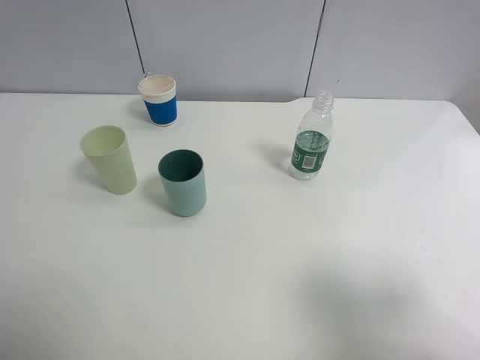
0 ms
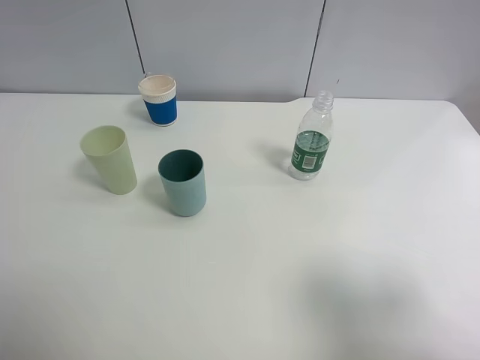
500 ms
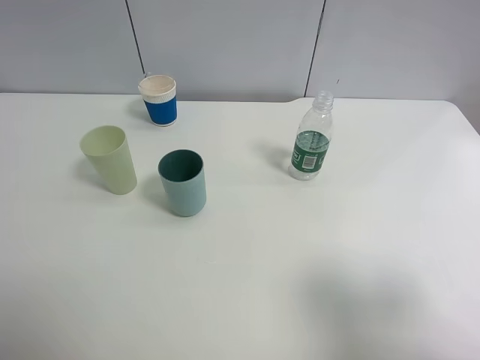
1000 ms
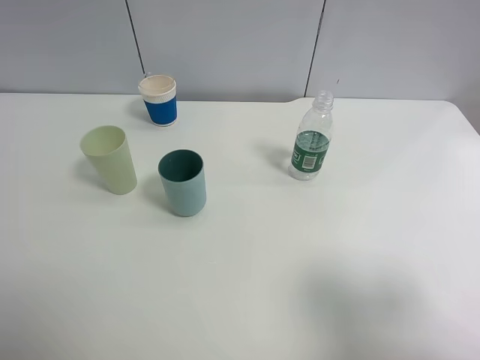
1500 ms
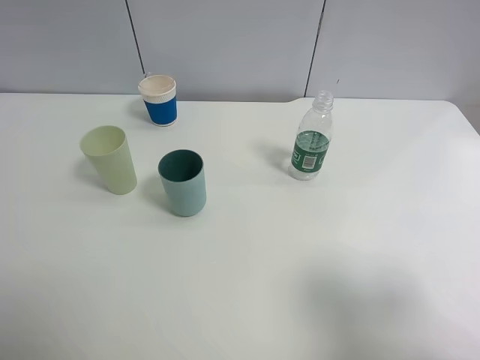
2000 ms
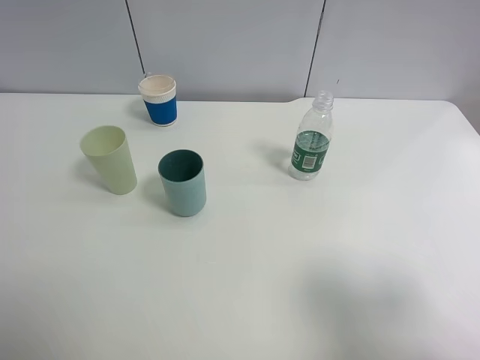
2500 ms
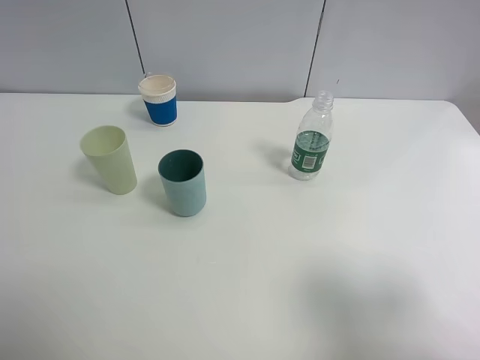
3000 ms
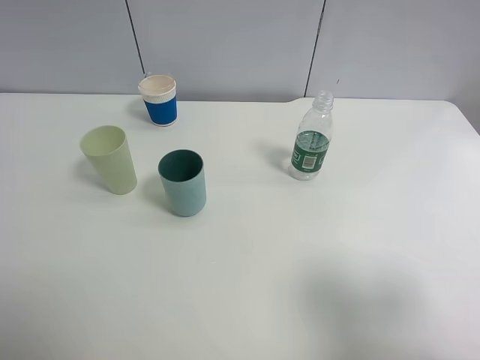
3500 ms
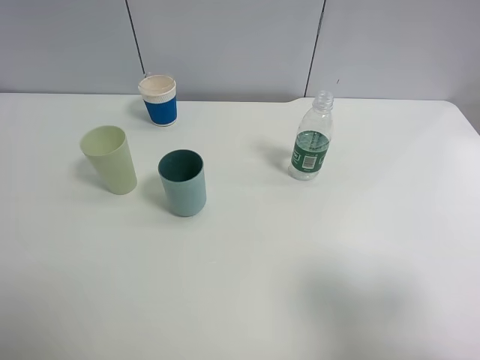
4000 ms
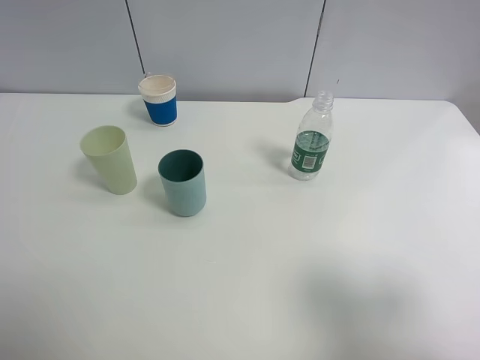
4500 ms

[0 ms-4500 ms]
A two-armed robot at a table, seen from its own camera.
Task of the whole recording: use a clamp to hold the bottle of the drink, pour the beverage into a random cup, then clamp the cup containing the drink and pour the drink into another random cup.
2000 ms to 4500 ms: Both grippers stay put.
